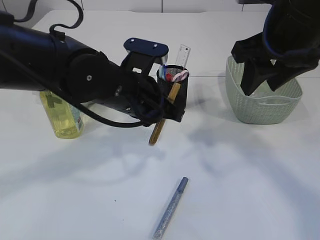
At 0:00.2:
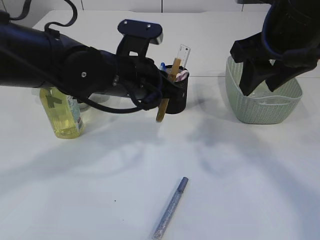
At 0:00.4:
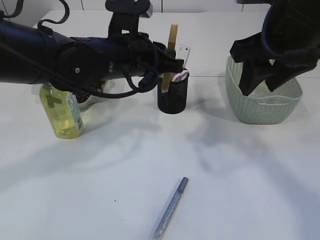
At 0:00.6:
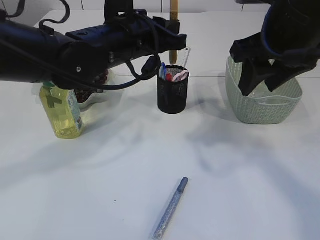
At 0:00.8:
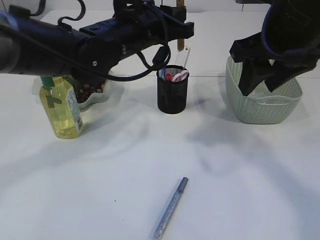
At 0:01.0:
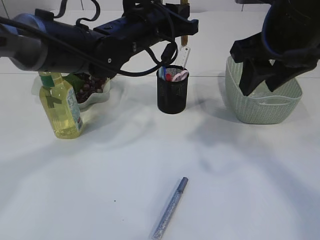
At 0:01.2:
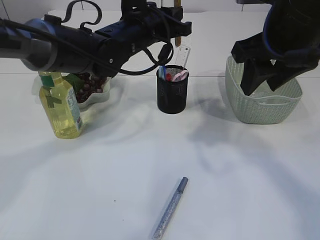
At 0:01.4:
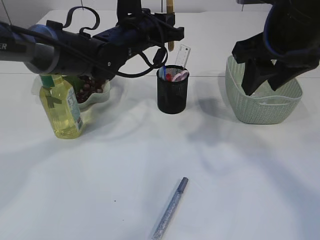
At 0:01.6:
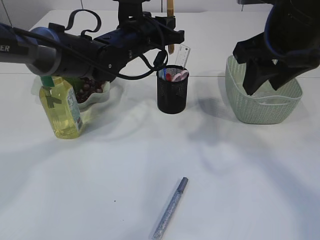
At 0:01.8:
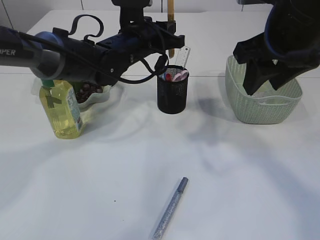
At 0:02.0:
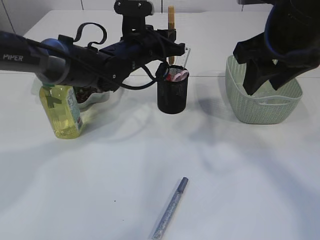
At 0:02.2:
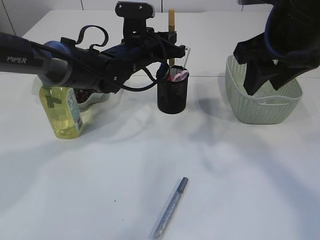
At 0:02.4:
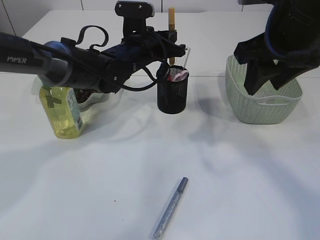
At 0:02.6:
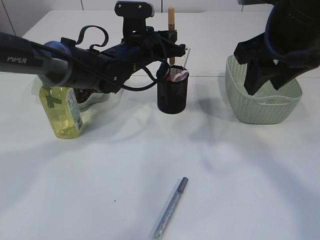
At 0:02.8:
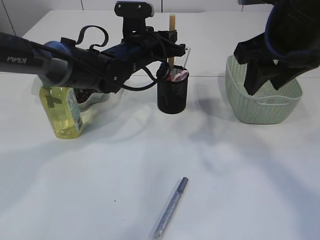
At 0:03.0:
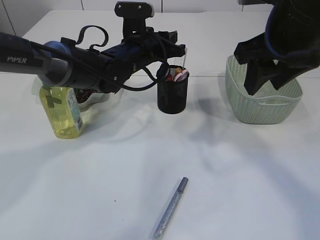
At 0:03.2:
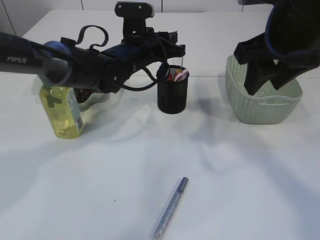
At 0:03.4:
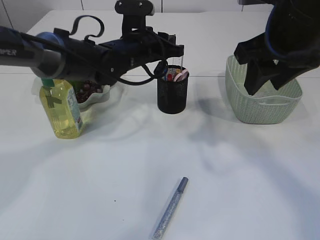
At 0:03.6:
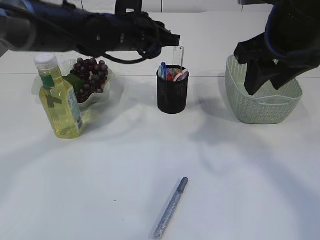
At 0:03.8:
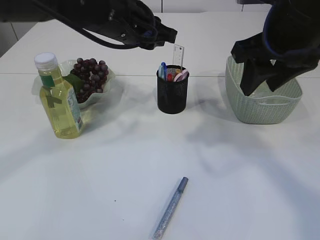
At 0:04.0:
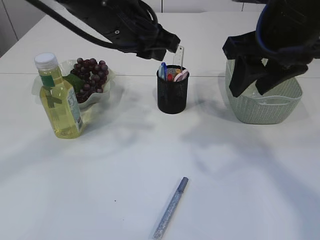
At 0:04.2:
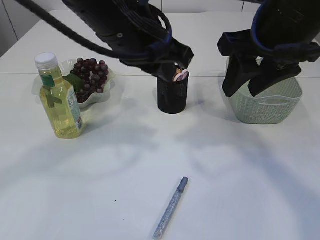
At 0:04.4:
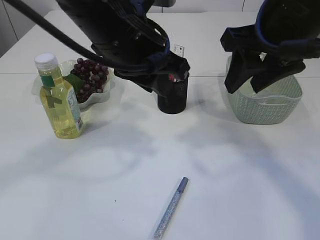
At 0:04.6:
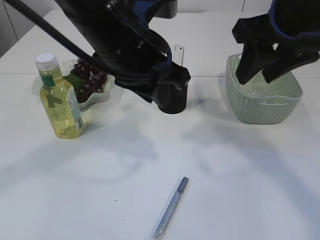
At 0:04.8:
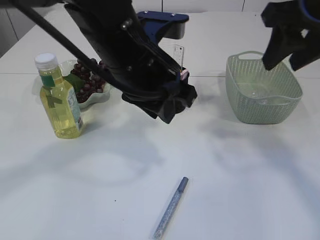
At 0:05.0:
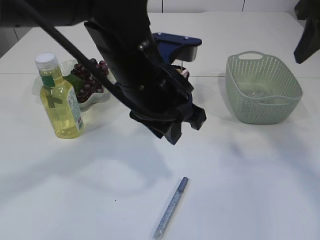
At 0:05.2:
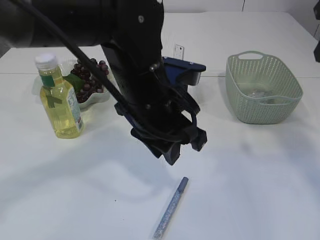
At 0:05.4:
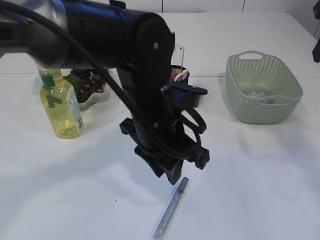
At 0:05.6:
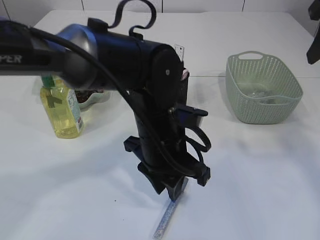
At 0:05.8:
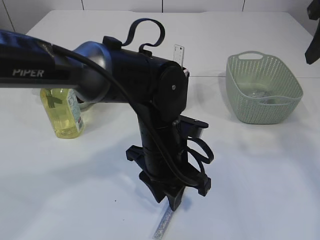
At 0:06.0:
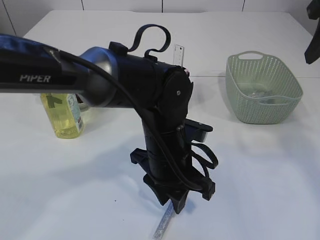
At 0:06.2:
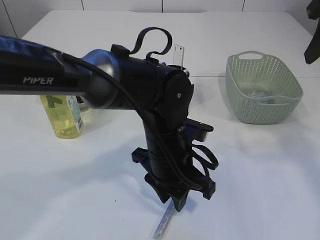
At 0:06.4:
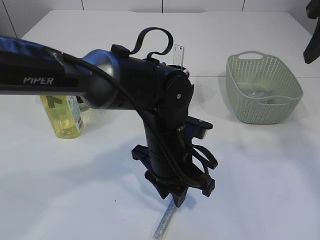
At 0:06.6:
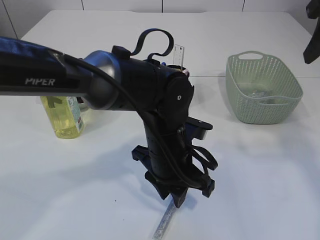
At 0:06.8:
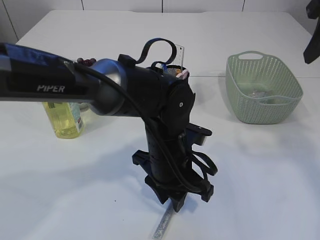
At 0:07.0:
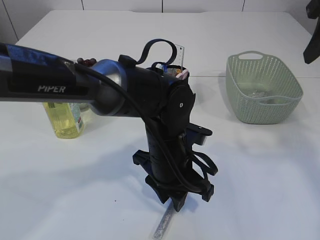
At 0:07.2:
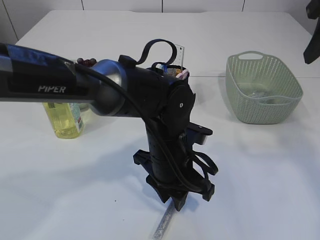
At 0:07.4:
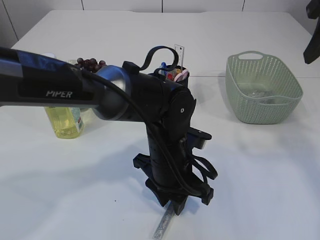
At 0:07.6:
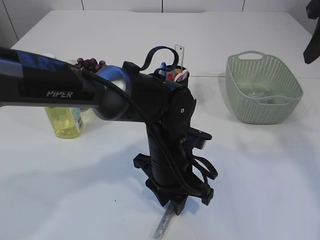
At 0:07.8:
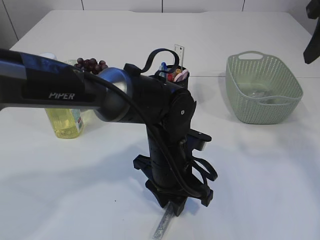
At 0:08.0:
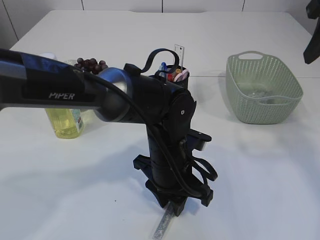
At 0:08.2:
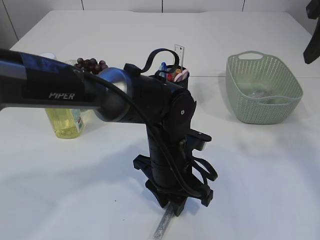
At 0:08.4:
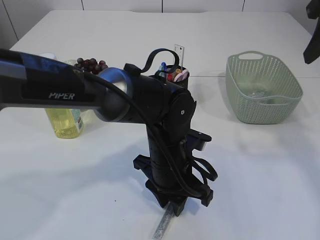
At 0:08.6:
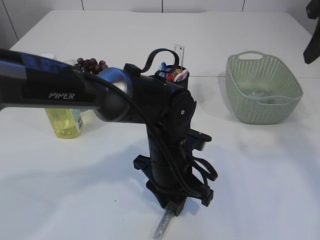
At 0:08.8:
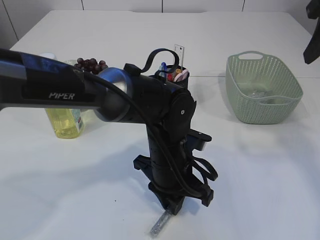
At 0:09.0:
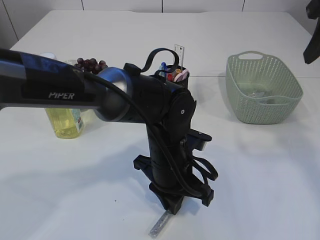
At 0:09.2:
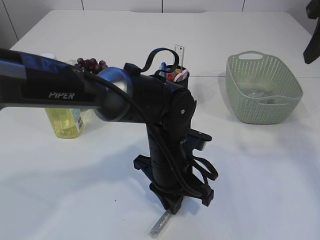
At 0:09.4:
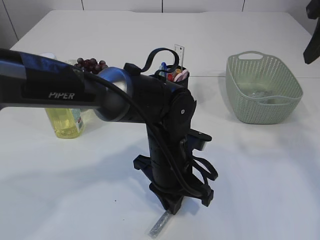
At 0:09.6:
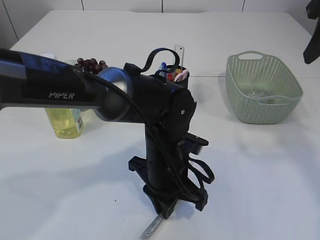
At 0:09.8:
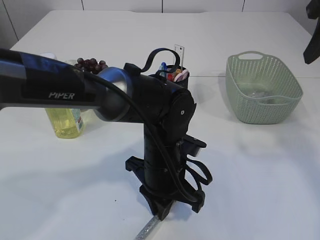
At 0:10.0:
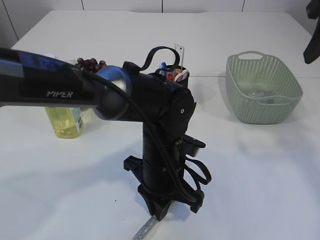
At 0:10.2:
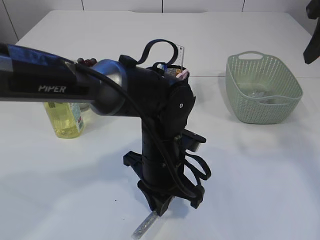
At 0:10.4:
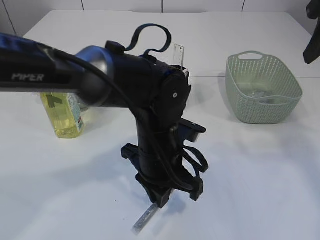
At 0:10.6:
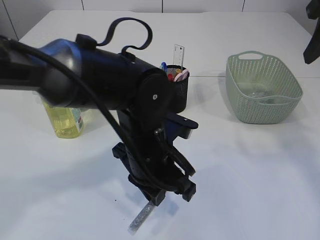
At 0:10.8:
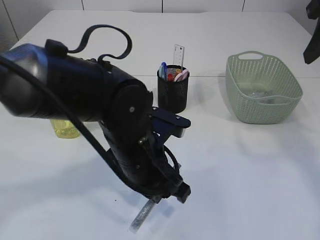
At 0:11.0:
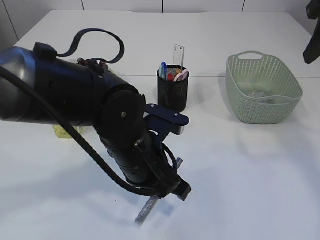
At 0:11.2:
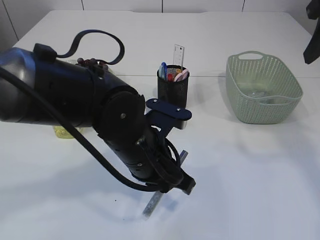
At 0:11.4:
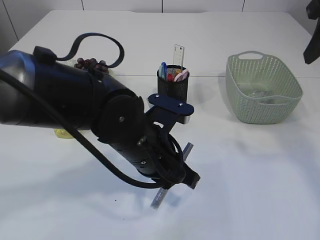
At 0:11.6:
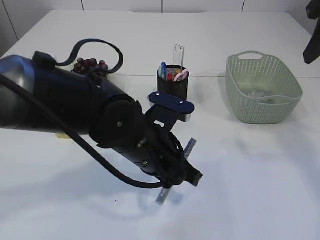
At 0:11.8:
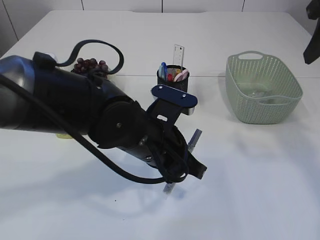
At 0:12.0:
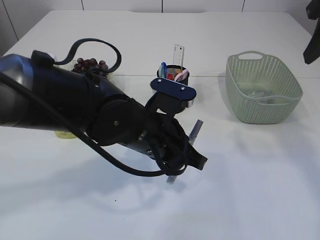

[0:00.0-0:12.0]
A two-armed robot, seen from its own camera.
Step, 0:00.0 to 0:03.4: place the yellow glue into the pen holder.
0:00.0 to 0:01.6: The left gripper goes approximately 15 cm forward.
0:01.6 to 0:03.0: The grippers stay close to where they were, moving slightly.
0:03.0 to 0:04.4: The left gripper moves backward and upward, some 20 cm.
0:04.4 to 0:06.0: The left gripper is displaced downward by about 15 cm, while the right gripper moves to the right, approximately 10 cm.
0:06.0 to 0:07.6: There are only small adjustments of the grippers.
0:07.6 to 0:09.0: Neither gripper changes place.
0:09.0 to 0:10.4: The grippers stay close to where they were, moving slightly.

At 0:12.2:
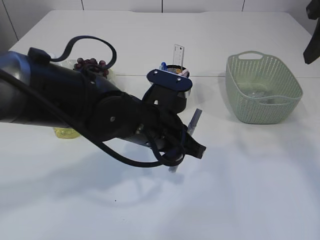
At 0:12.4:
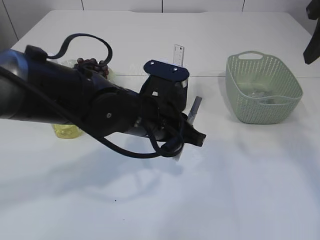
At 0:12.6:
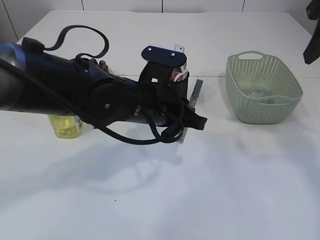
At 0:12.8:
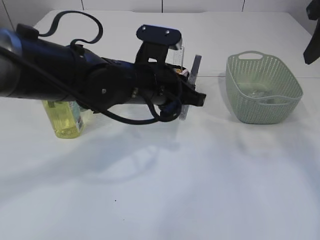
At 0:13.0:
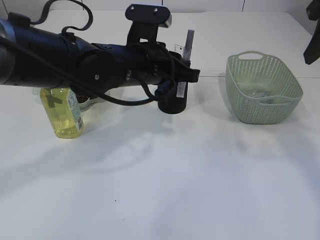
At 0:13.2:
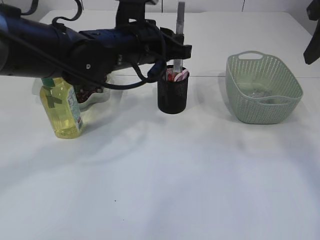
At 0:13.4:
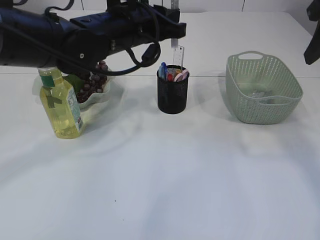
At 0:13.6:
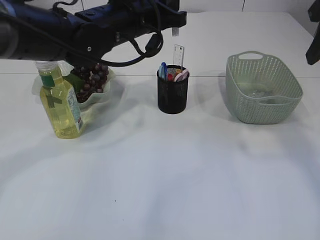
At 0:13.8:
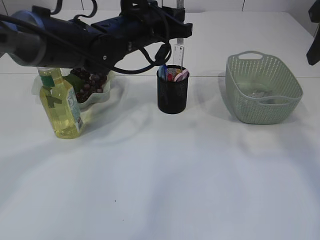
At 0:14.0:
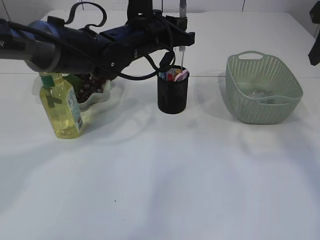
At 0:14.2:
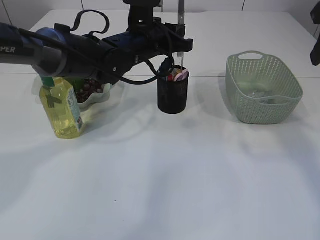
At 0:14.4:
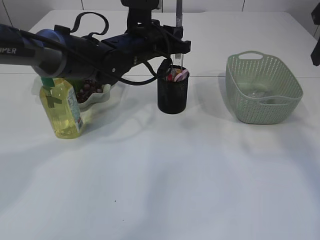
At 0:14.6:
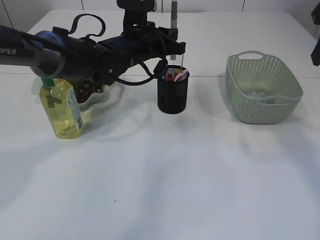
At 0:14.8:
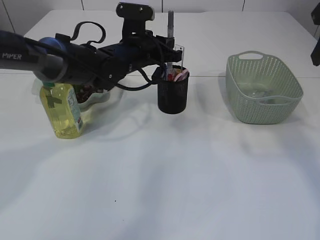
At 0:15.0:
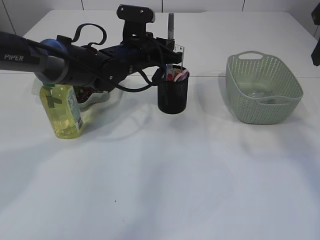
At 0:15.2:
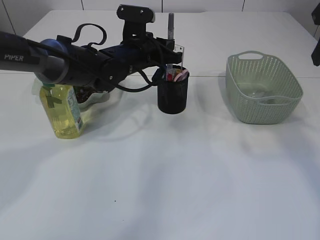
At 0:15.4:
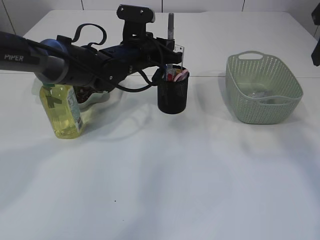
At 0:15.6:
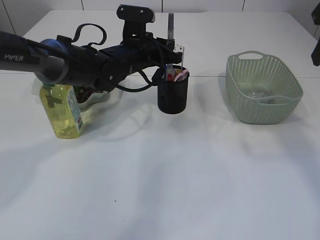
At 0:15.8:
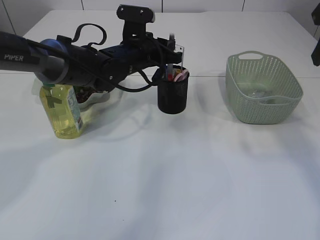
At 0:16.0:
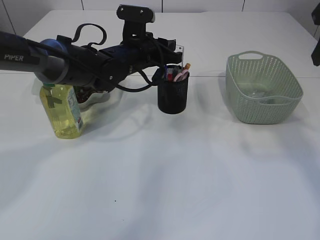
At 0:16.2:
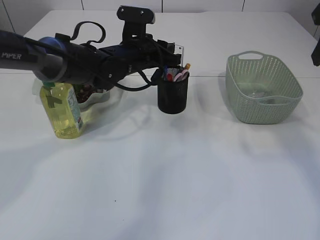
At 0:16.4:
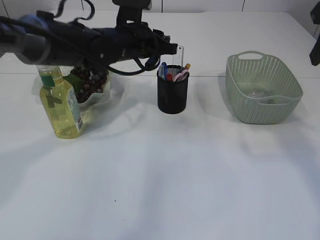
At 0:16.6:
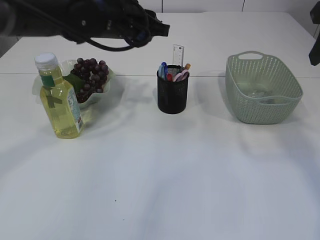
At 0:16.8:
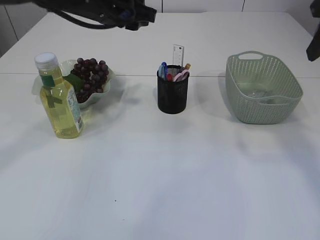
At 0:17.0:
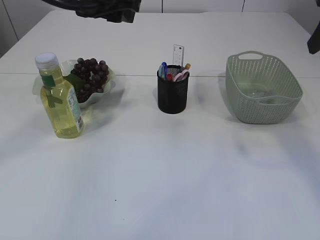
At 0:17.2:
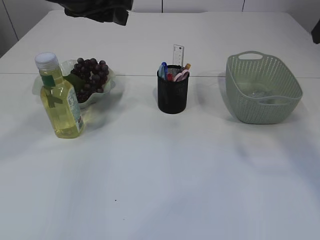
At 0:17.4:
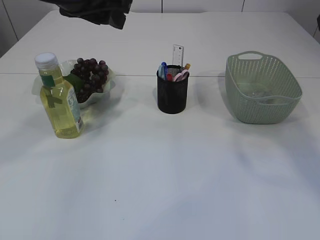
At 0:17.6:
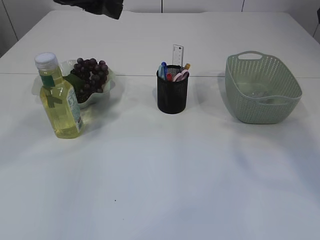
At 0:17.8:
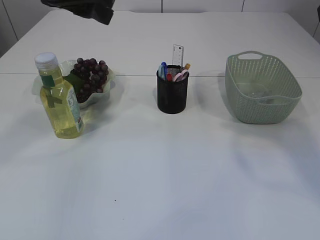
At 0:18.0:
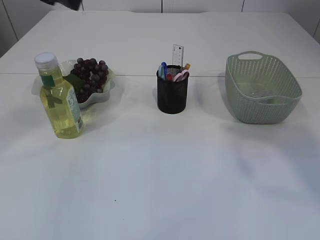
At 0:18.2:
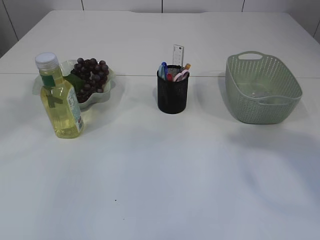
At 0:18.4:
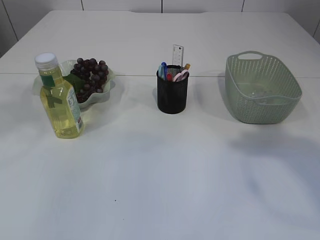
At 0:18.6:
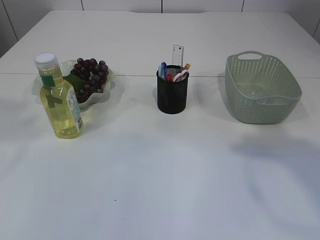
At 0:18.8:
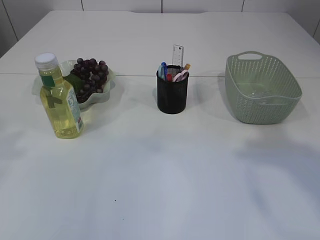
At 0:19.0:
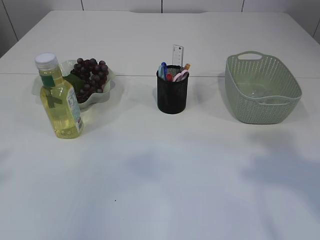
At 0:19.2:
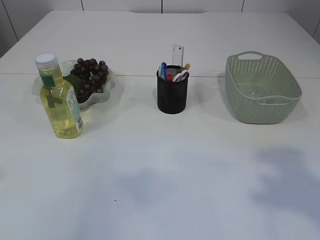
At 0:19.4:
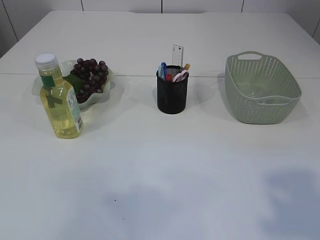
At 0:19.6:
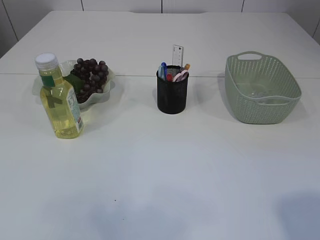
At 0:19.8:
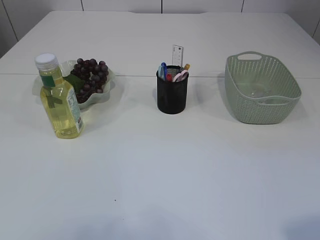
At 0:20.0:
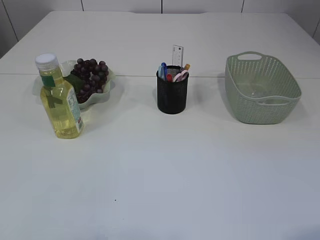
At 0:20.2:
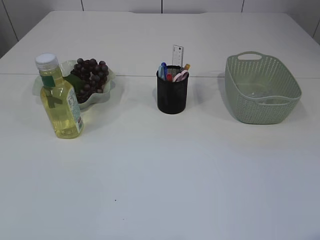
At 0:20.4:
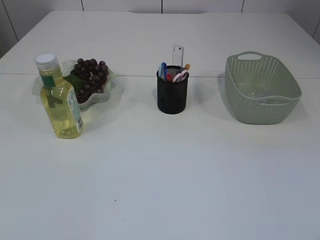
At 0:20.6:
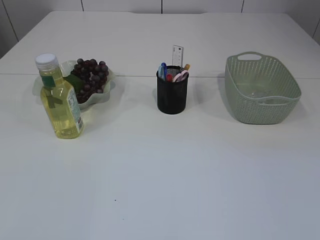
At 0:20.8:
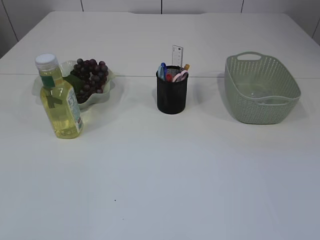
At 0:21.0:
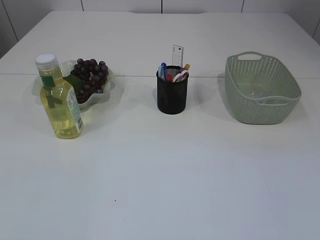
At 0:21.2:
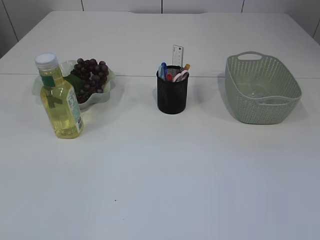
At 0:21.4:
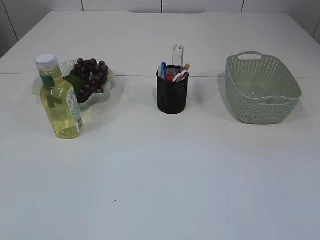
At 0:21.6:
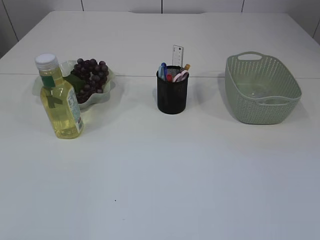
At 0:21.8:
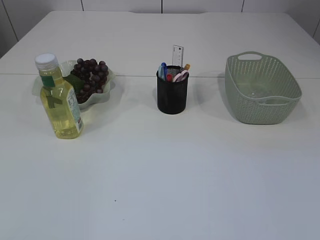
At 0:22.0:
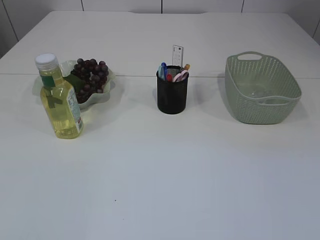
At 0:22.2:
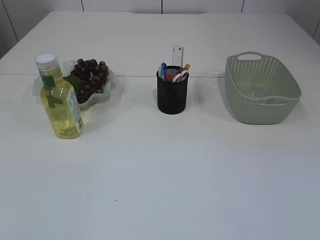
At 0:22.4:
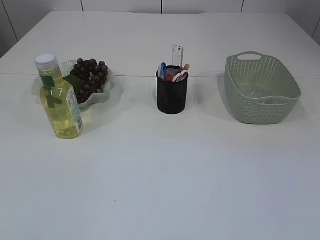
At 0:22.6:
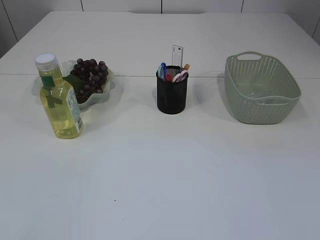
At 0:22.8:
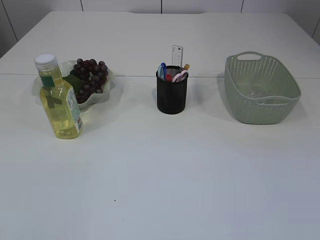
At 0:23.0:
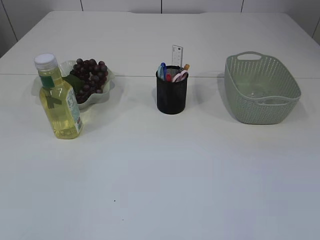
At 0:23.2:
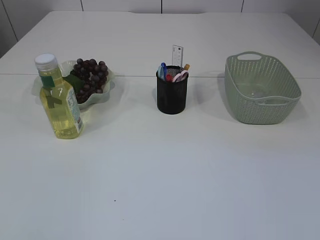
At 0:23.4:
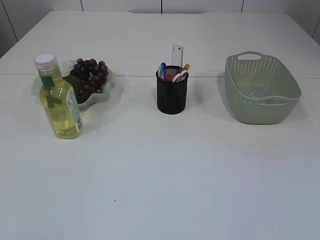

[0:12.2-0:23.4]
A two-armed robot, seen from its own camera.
Step, 0:12.2 to 0:16.4: place the silver glue into the pen holder.
0:12.2 to 0:13.8: The left gripper heads forward and upward, covering some 15 cm.
0:13.8 to 0:15.4: The left gripper moves downward, roughly 5 cm.
0:15.4 to 0:17.0: The left gripper travels upward and backward by approximately 15 cm, and opens.
0:17.0 to 0:18.6: The right gripper moves backward, some 10 cm. Meanwhile the left gripper travels backward, to the left and upward by some 20 cm.
